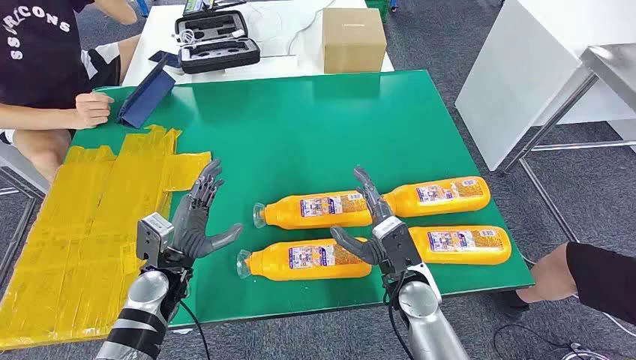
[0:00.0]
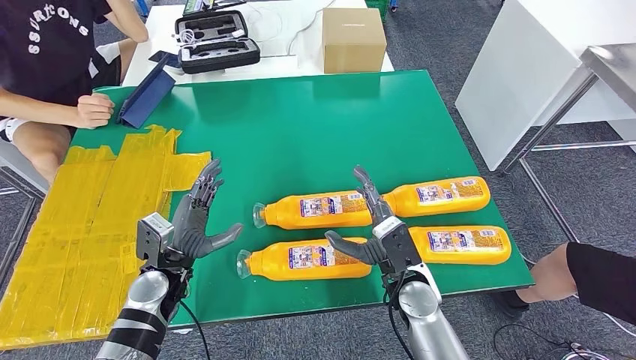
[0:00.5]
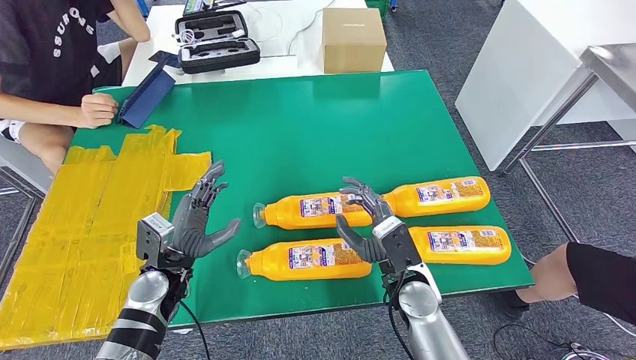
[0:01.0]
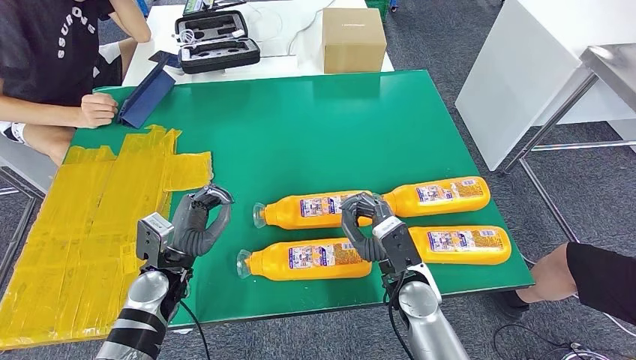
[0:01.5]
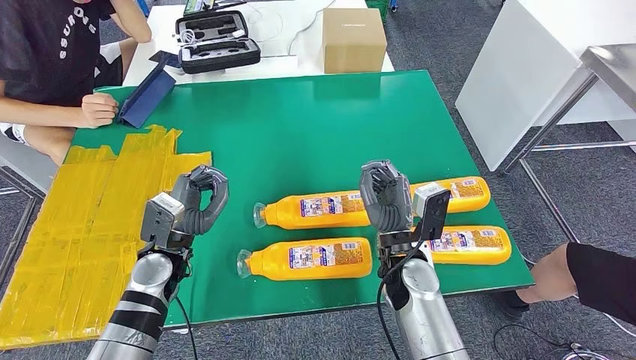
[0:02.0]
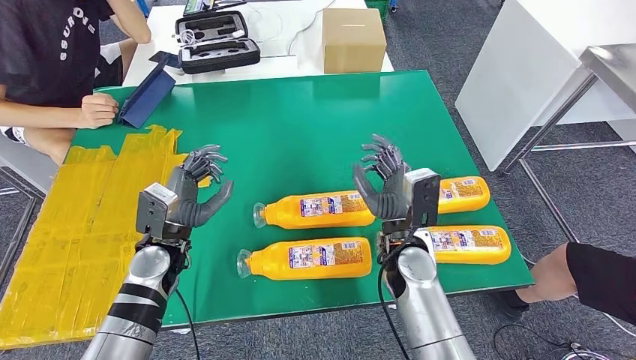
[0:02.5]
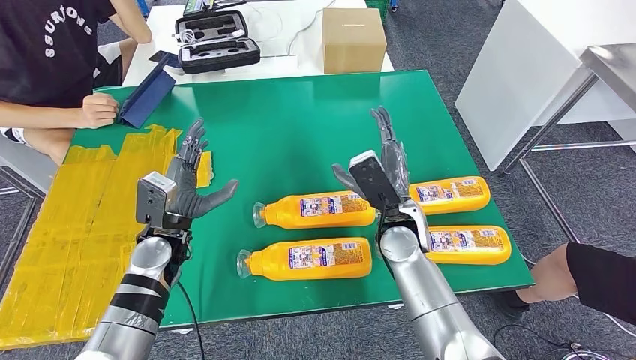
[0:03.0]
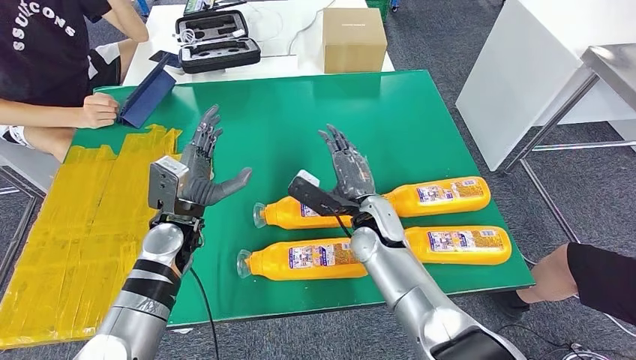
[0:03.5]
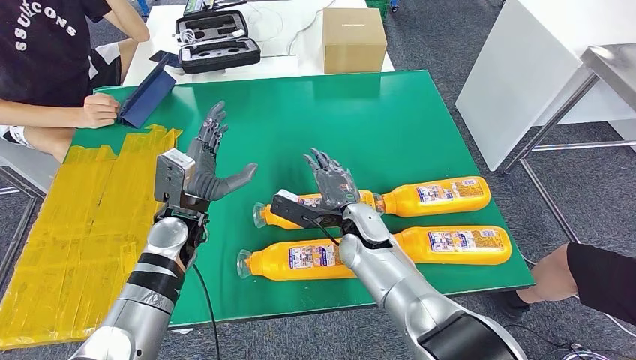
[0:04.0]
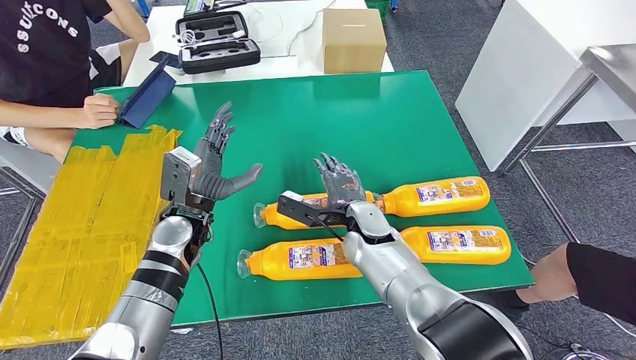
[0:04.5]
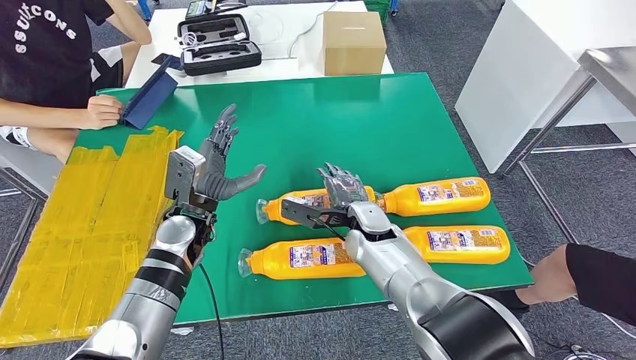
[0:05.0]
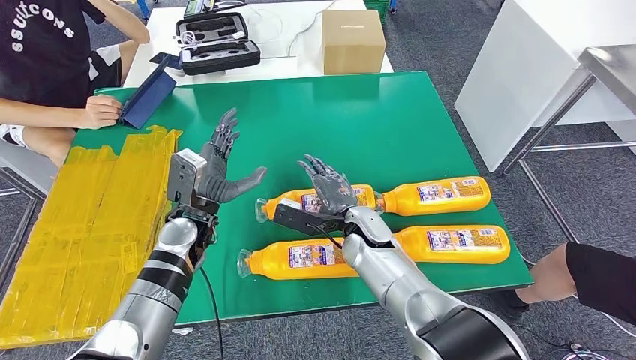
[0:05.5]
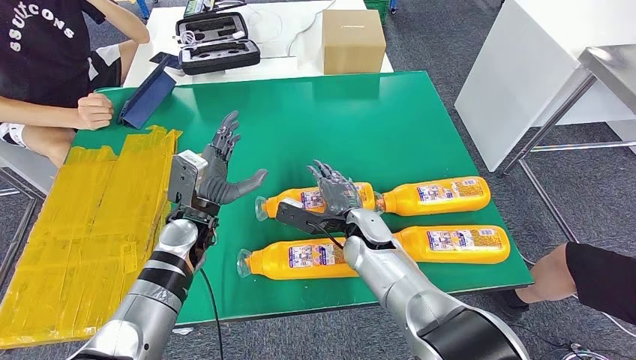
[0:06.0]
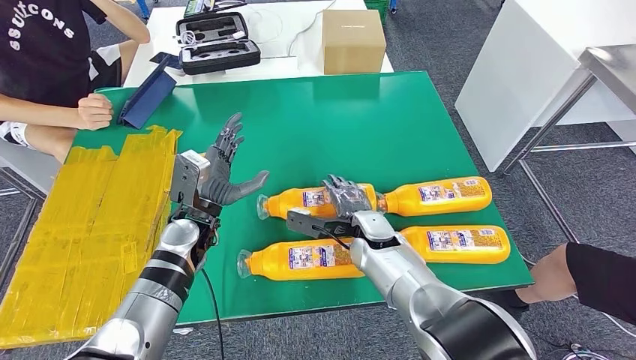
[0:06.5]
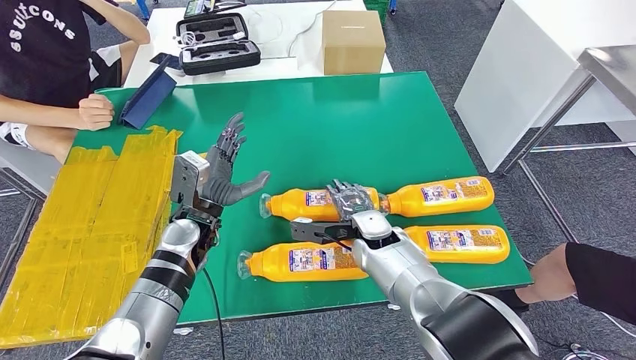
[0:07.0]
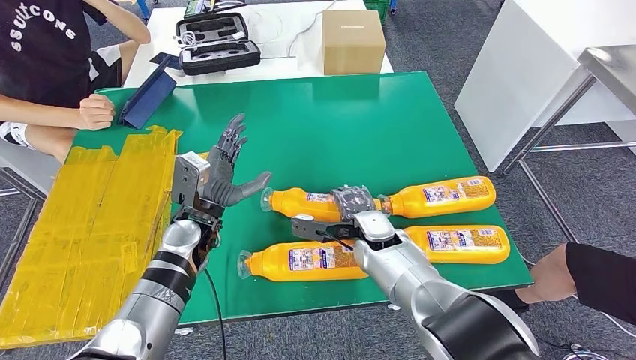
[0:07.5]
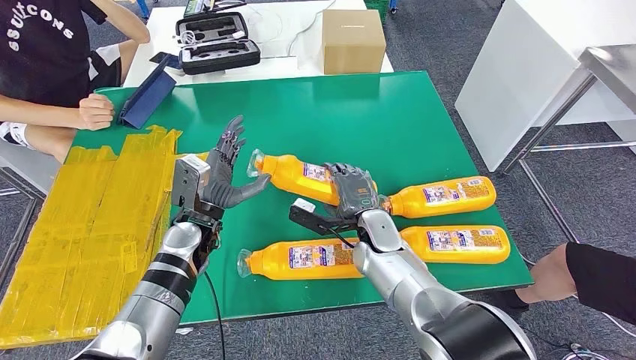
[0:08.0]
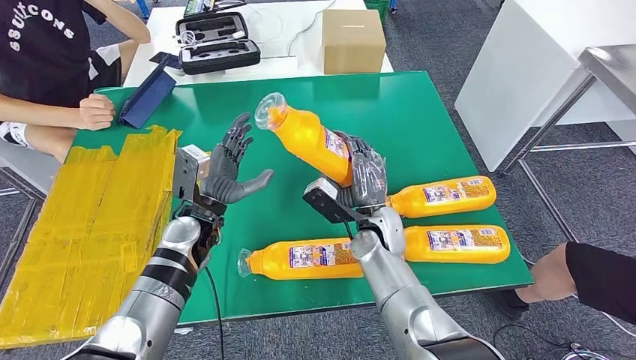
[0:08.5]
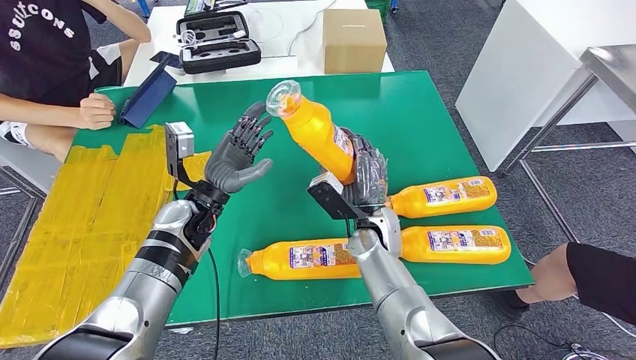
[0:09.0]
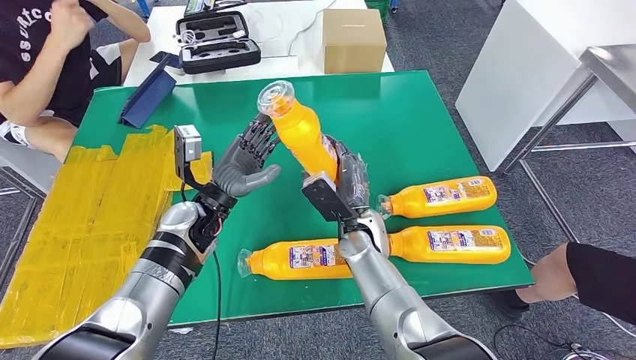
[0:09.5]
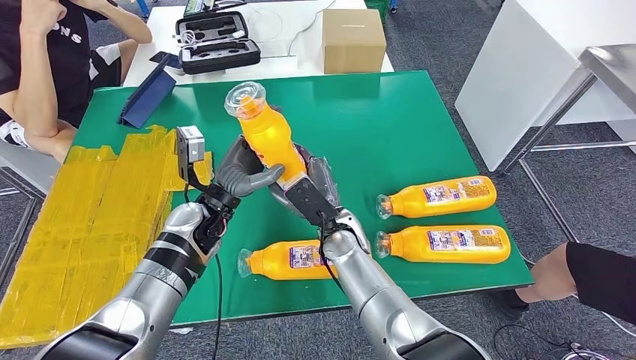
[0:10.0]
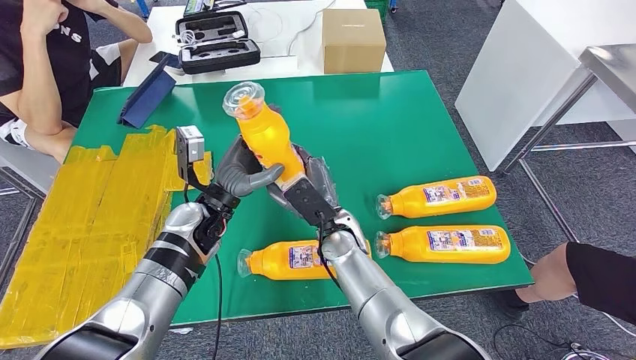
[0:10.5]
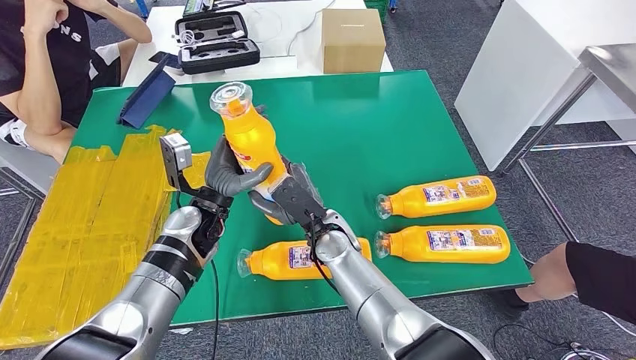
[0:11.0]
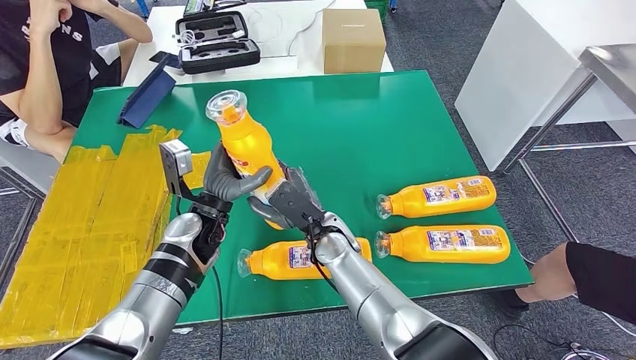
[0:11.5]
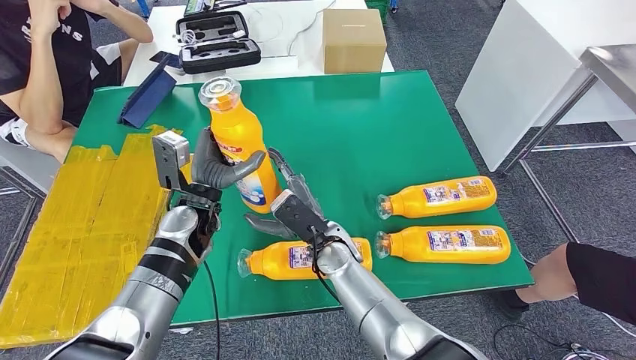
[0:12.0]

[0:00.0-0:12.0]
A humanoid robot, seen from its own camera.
Step, 0:00.0 to 0:10.0: Take the fast-moving consumer goods bottle from the table.
0:02.0 to 0:04.0: The right hand moves forward and to the left, approximately 10 cm. The left hand changes place by roughly 5 cm.
0:04.0 to 0:06.0: The hands make only small movements.

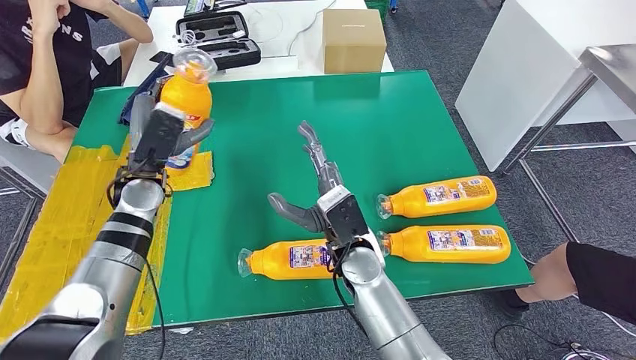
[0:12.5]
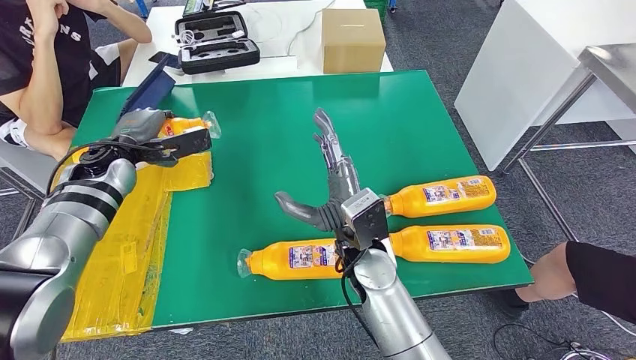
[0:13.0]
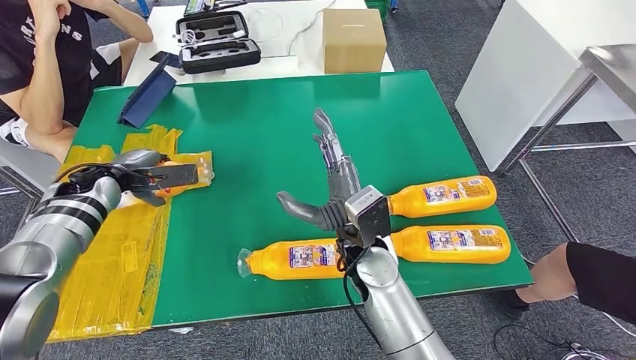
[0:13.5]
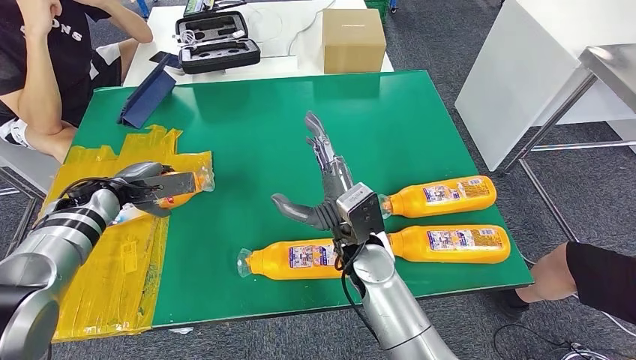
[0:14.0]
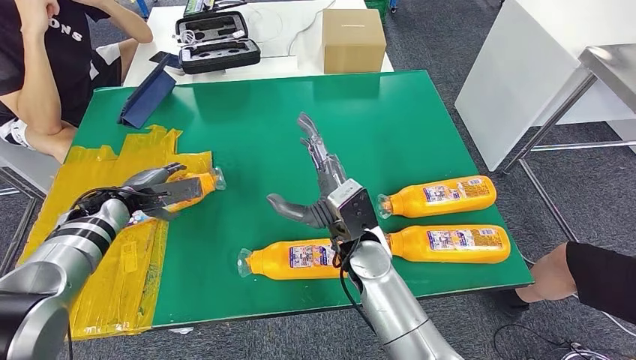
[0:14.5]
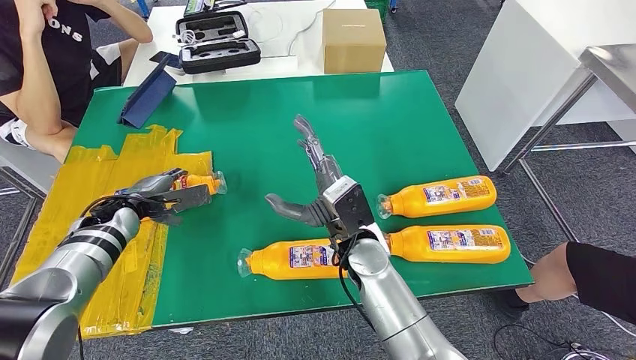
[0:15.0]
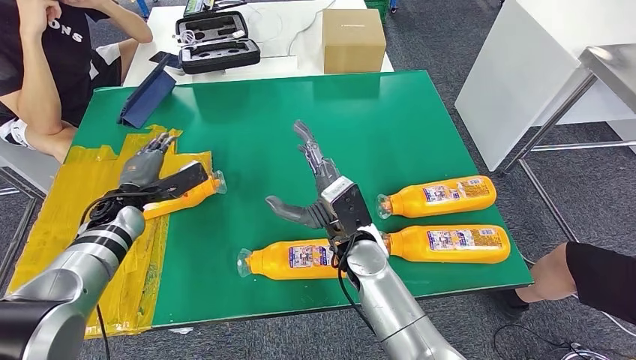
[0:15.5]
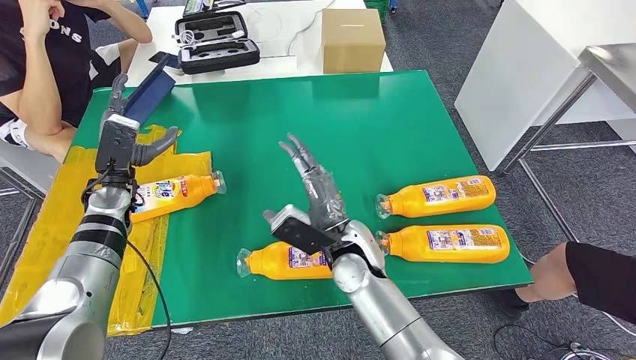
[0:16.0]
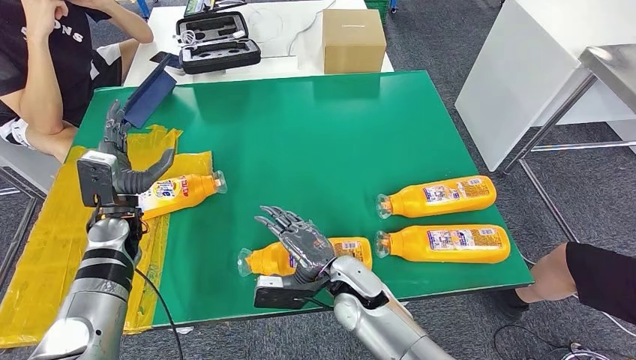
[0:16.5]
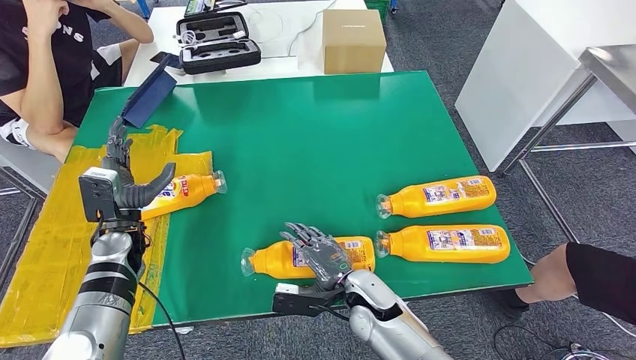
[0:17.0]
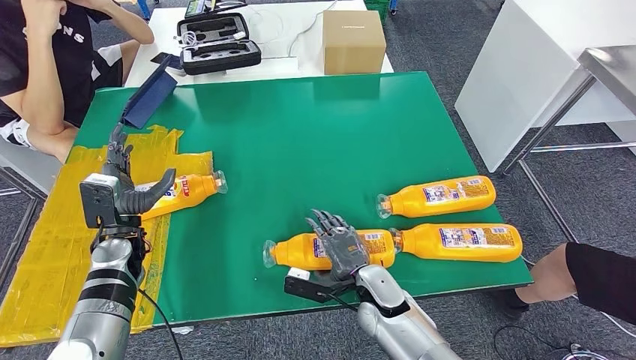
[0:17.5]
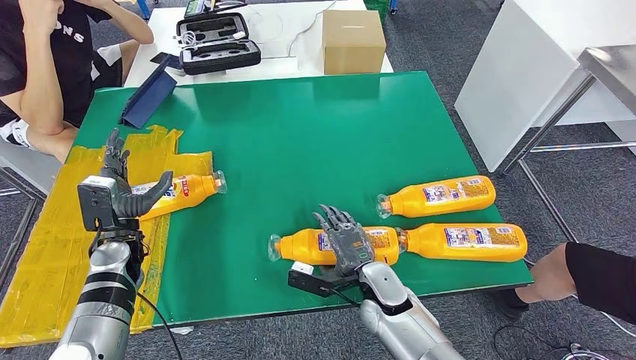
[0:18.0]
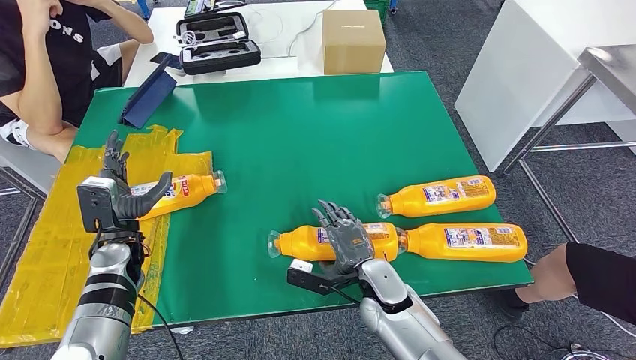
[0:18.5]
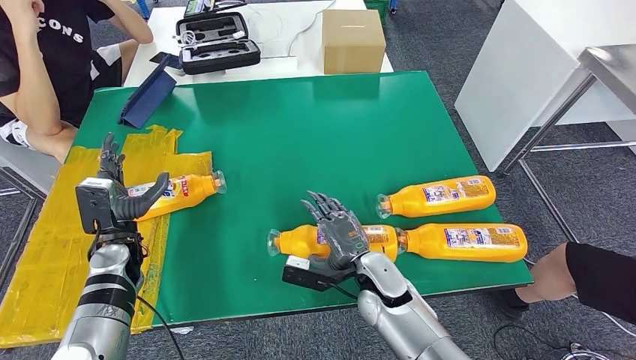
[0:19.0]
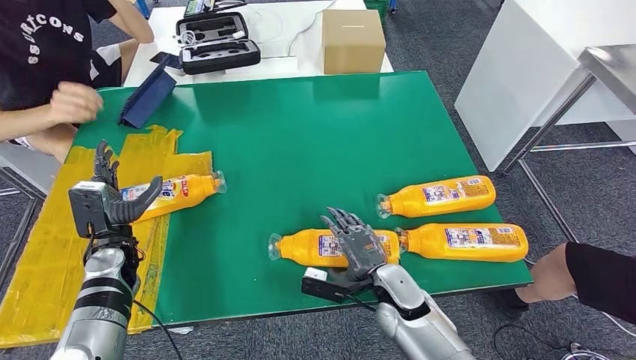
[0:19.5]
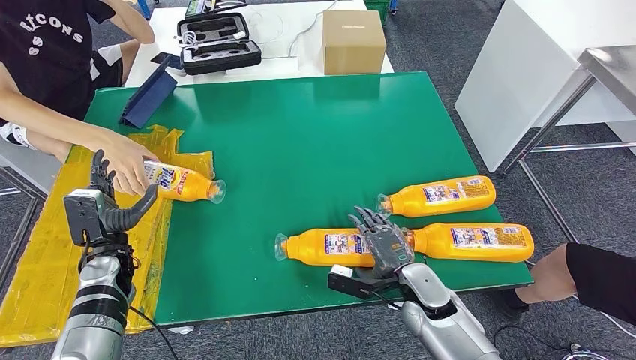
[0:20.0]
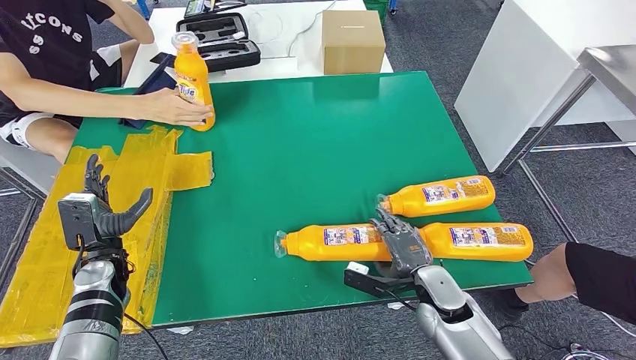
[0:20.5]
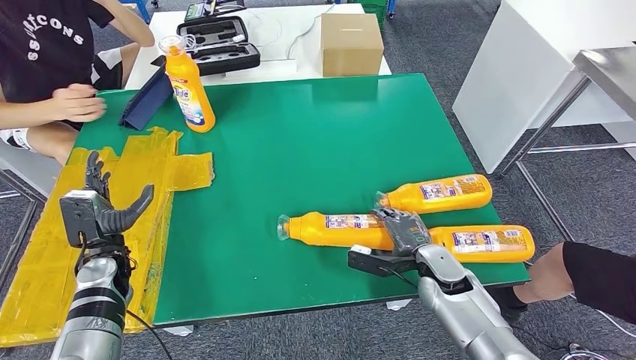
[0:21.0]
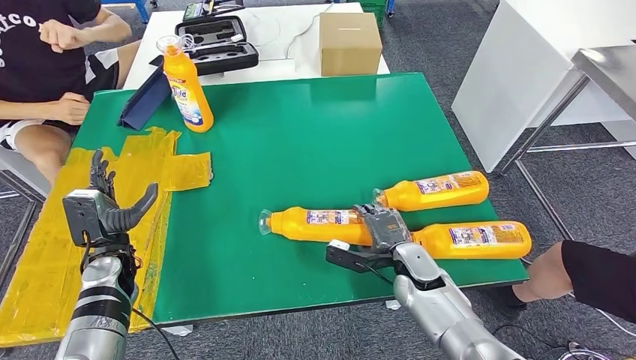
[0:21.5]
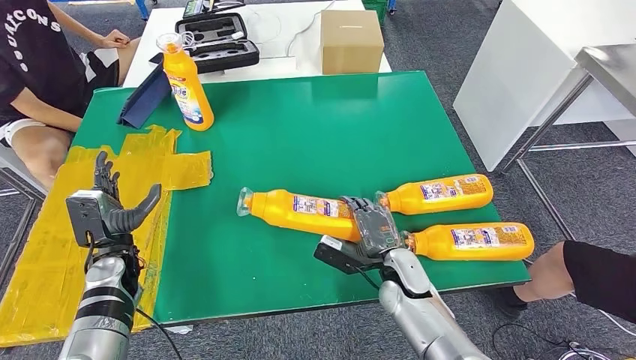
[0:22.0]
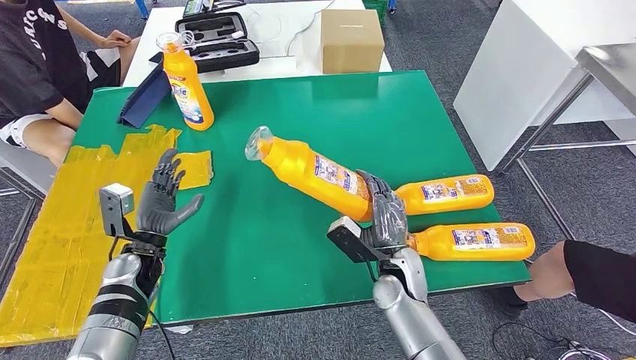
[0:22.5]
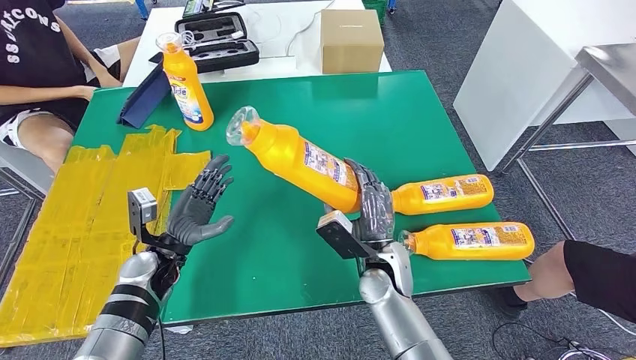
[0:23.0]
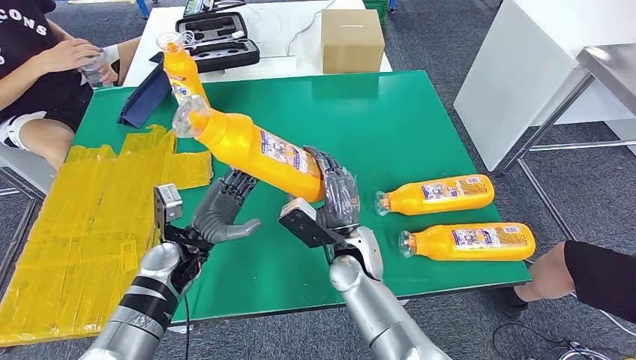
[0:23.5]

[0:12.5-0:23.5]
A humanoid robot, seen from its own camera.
Step, 0:14.5 to 0:23.0: Pick up the fast-moving consumer goods bottle from the table.
0:12.5 to 0:14.5: The left hand travels to the left and downward by roughly 15 cm.
0:16.0 to 0:18.0: The right hand shifts roughly 10 cm downward and to the right, while the left hand heads backward and downward, covering roughly 10 cm.
0:18.0 to 0:20.0: The right hand heads to the right, covering some 10 cm.
